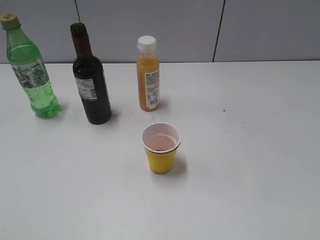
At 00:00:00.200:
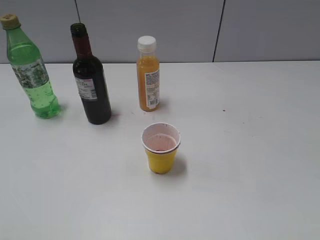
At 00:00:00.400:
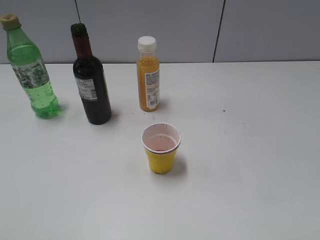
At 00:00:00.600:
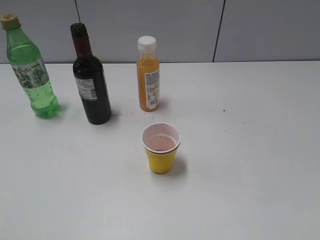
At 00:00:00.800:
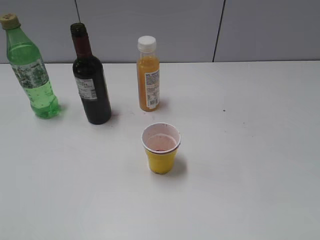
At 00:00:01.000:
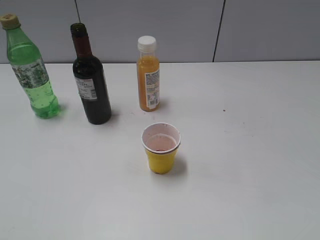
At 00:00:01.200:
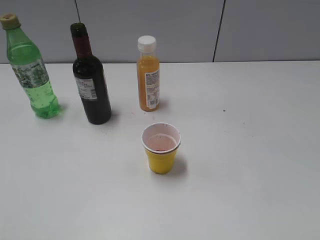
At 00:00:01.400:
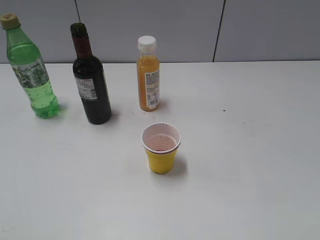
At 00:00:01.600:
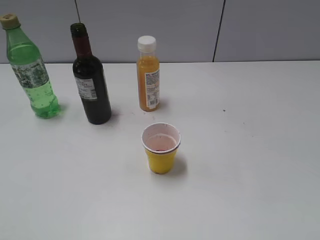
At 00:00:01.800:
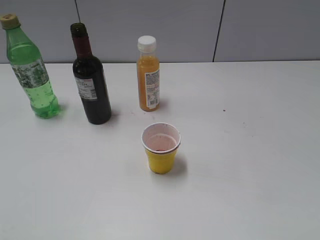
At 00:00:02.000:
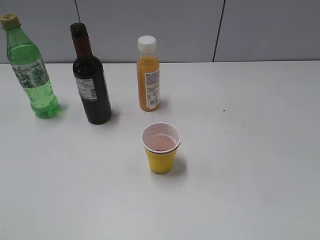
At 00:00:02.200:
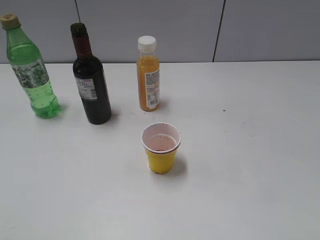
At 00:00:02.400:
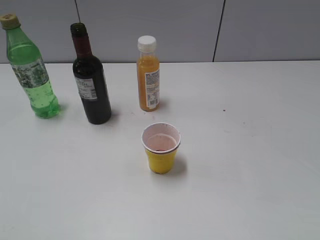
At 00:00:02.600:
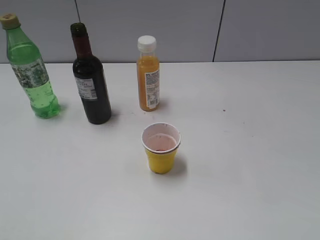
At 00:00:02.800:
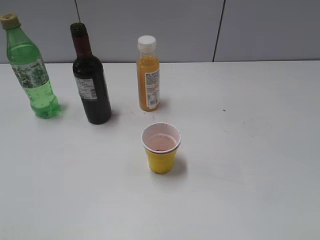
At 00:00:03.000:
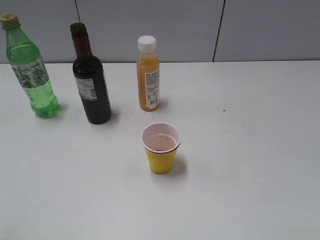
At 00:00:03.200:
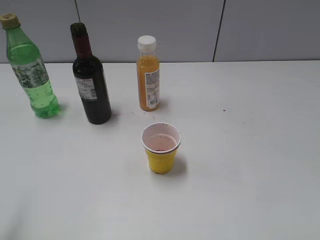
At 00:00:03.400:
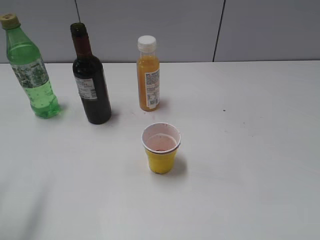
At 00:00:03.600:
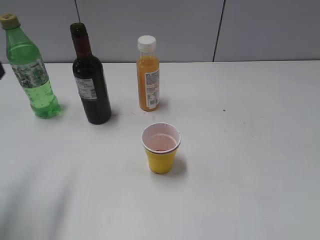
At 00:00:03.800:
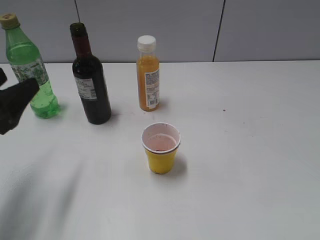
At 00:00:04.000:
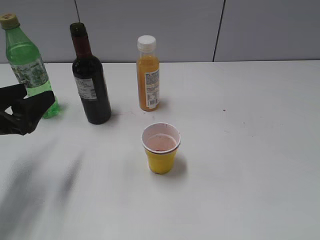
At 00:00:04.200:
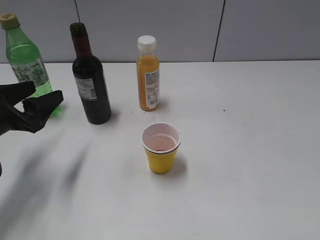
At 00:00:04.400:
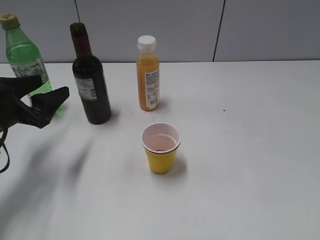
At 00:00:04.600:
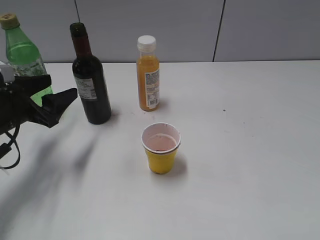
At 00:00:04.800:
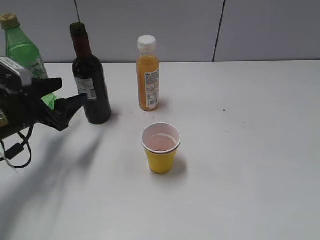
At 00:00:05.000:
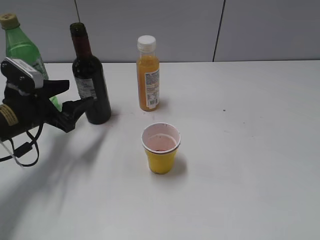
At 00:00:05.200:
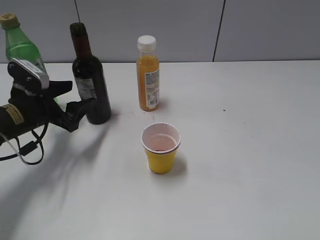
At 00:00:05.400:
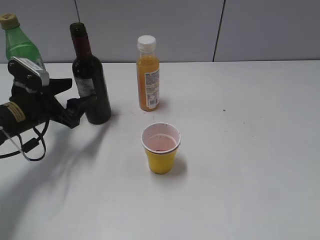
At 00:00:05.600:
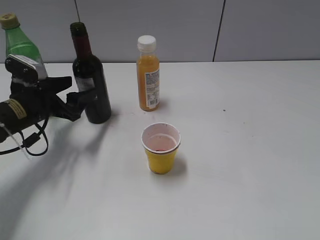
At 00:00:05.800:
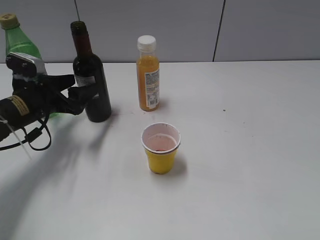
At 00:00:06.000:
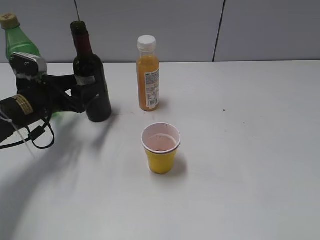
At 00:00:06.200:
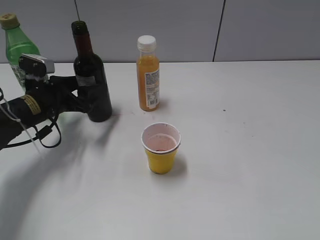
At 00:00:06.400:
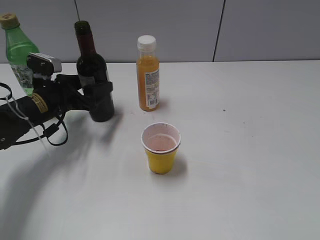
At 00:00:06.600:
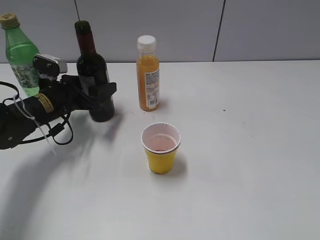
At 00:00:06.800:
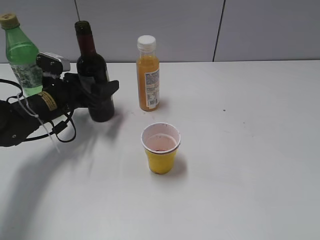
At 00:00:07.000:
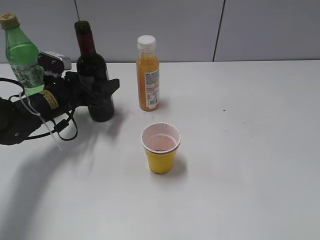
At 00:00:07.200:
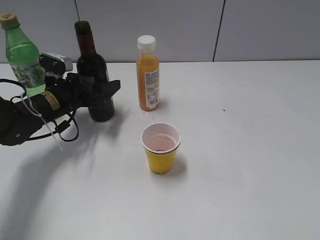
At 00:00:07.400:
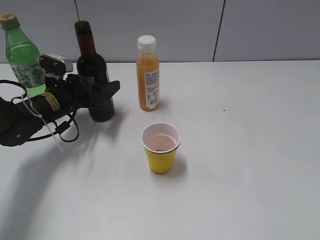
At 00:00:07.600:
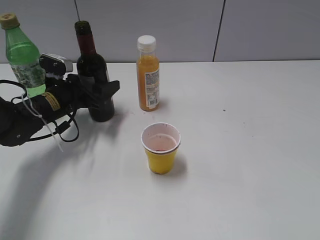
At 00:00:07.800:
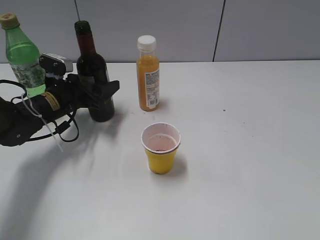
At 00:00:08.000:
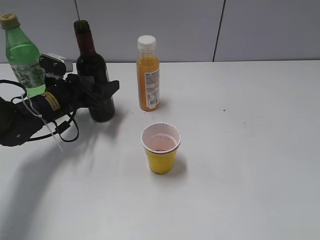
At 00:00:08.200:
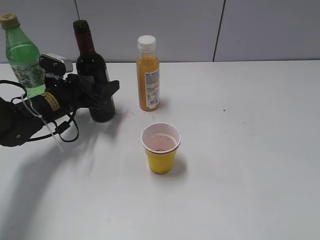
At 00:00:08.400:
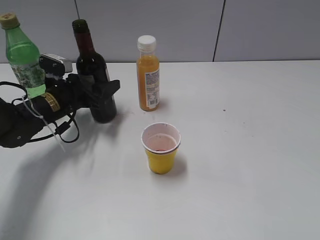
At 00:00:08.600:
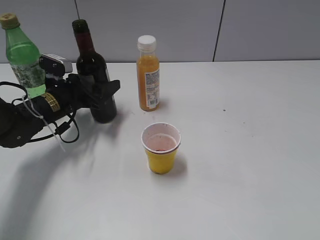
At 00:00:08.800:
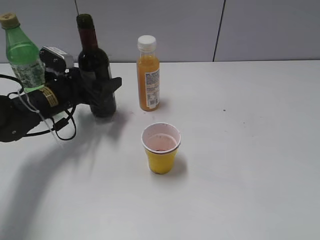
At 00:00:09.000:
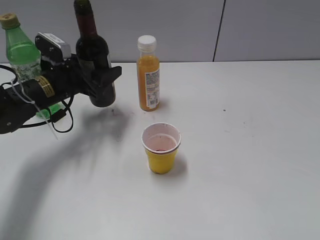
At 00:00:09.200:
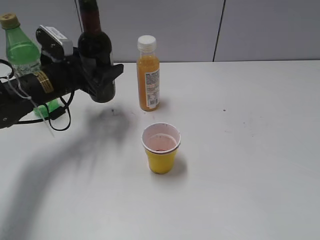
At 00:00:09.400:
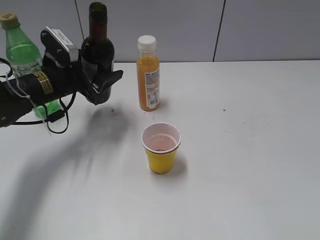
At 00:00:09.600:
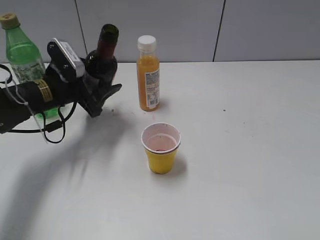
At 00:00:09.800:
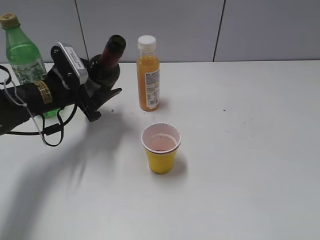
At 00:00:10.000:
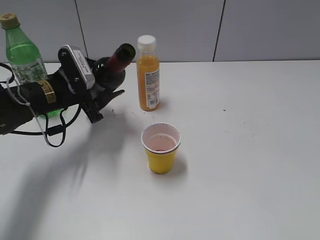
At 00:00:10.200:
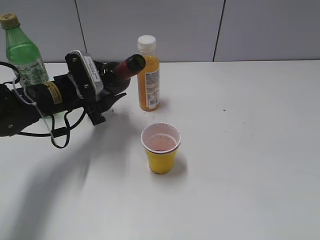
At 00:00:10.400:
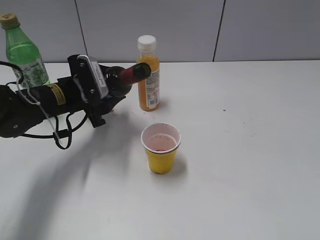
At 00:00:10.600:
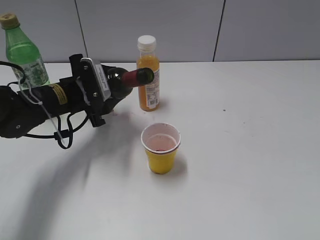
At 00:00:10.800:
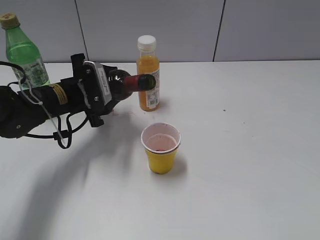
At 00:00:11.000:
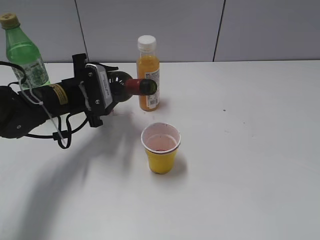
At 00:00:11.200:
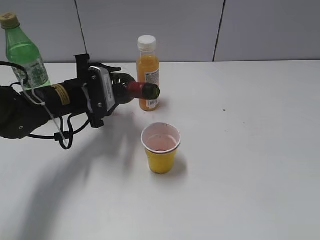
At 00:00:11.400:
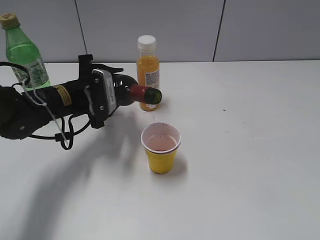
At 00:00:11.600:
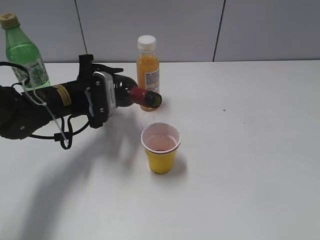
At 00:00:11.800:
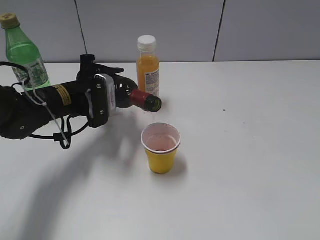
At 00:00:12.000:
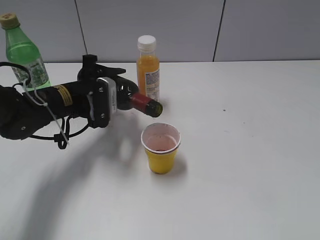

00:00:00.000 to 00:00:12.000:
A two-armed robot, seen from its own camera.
Step, 00:00:00.000 to 00:00:08.200: Grasp the bottle with red wine with left gripper.
00:00:00.000 to 00:00:01.600: Neither gripper changes place.
00:00:03.000 to 00:00:04.400: The left gripper heads forward and downward, covering approximately 30 cm.
00:00:04.400 to 00:00:06.000: The left gripper goes approximately 5 cm forward.
00:00:06.000 to 00:00:07.600: The left gripper moves roughly 5 cm.
00:00:07.600 to 00:00:09.000: There are only small adjustments of the grippers.

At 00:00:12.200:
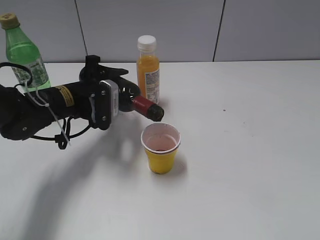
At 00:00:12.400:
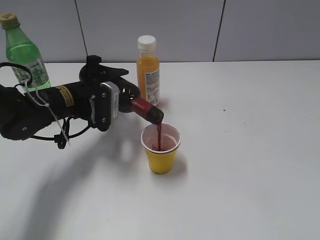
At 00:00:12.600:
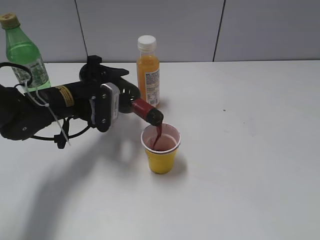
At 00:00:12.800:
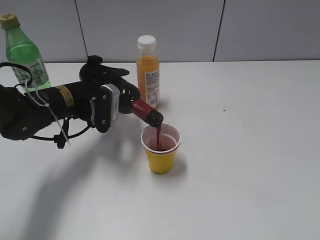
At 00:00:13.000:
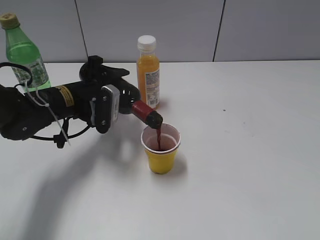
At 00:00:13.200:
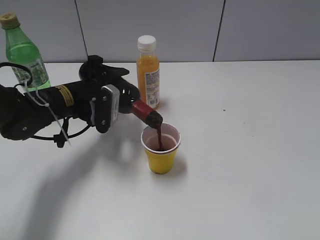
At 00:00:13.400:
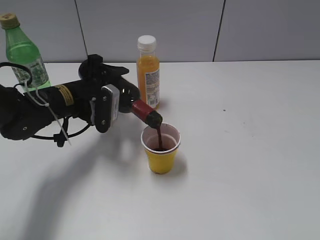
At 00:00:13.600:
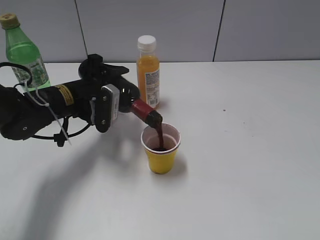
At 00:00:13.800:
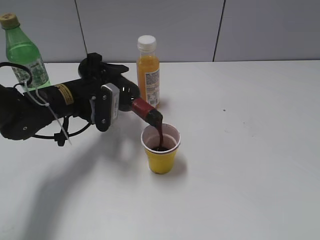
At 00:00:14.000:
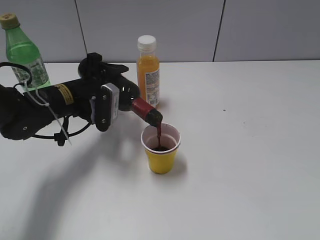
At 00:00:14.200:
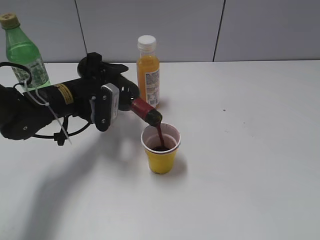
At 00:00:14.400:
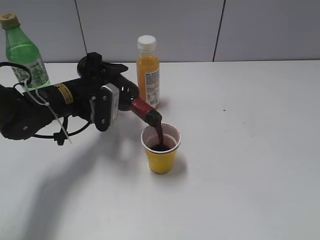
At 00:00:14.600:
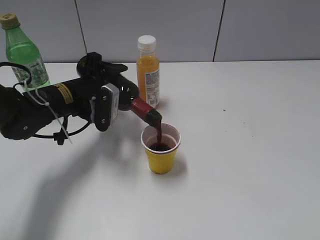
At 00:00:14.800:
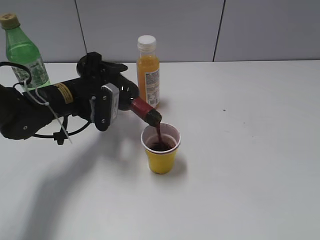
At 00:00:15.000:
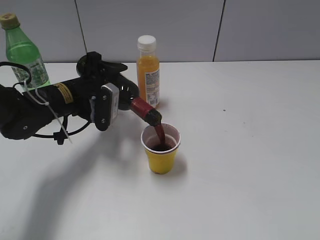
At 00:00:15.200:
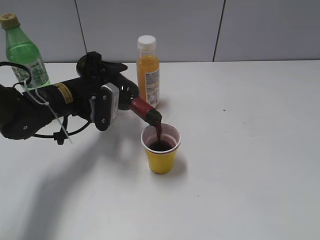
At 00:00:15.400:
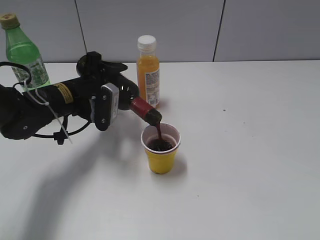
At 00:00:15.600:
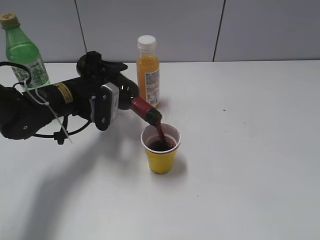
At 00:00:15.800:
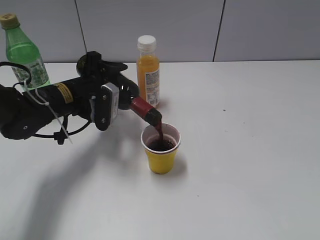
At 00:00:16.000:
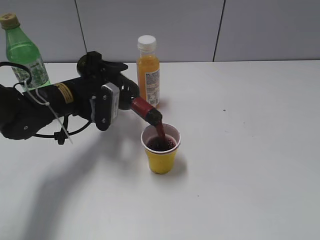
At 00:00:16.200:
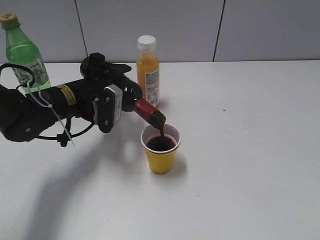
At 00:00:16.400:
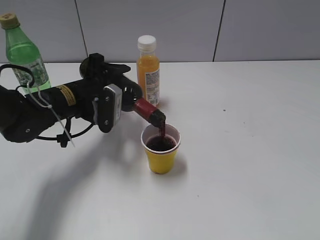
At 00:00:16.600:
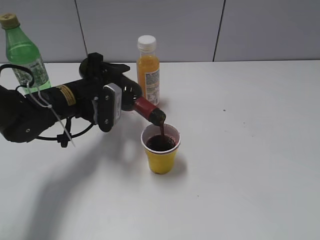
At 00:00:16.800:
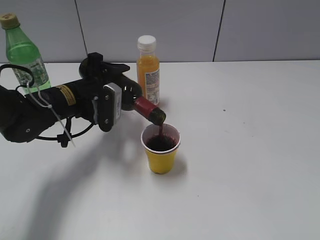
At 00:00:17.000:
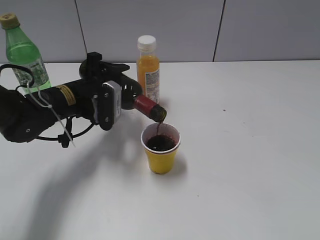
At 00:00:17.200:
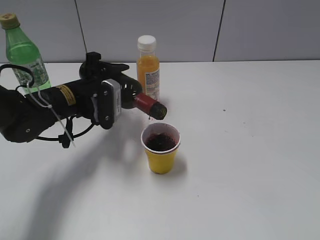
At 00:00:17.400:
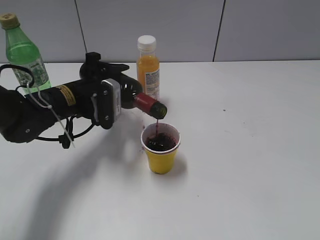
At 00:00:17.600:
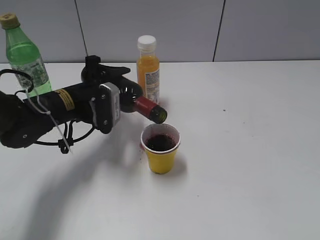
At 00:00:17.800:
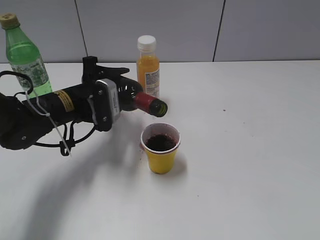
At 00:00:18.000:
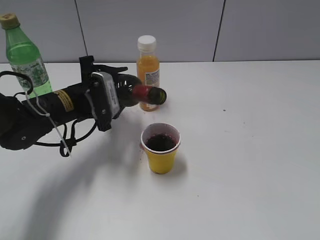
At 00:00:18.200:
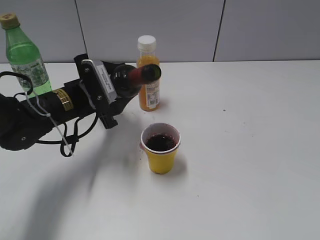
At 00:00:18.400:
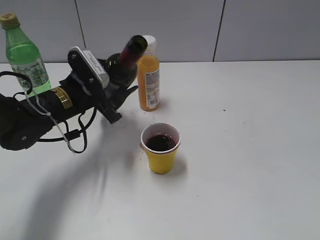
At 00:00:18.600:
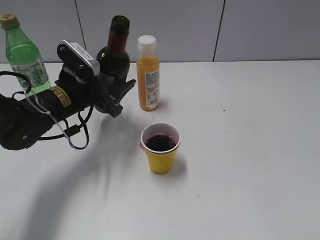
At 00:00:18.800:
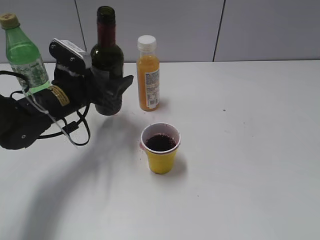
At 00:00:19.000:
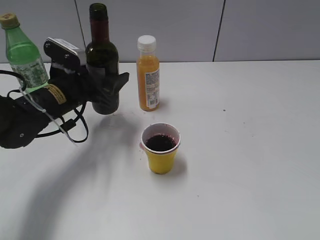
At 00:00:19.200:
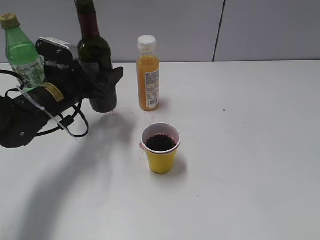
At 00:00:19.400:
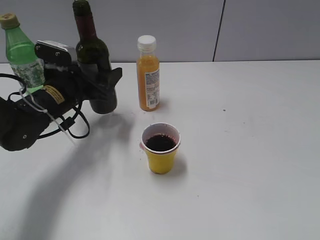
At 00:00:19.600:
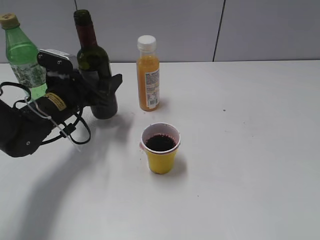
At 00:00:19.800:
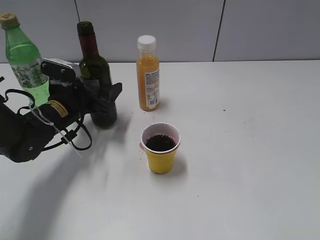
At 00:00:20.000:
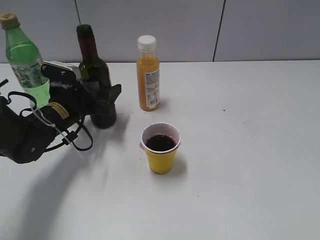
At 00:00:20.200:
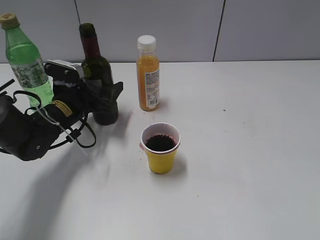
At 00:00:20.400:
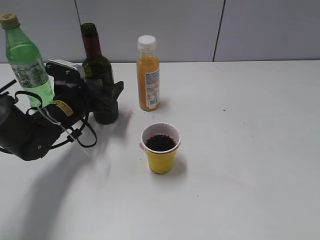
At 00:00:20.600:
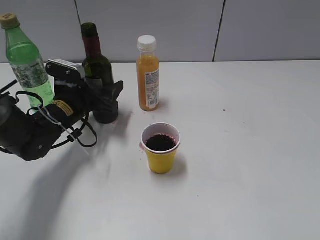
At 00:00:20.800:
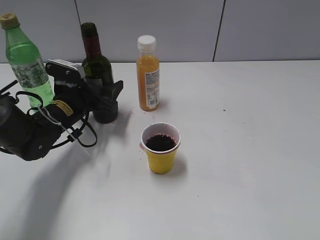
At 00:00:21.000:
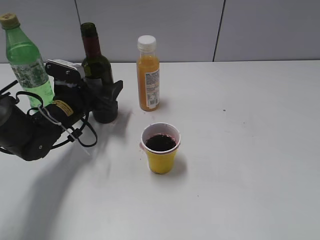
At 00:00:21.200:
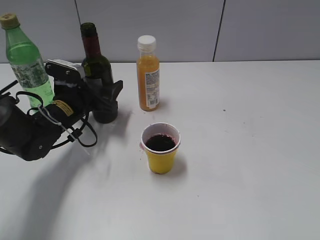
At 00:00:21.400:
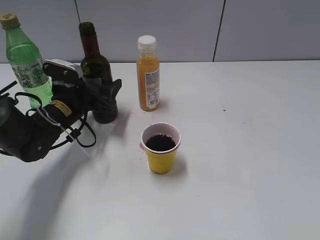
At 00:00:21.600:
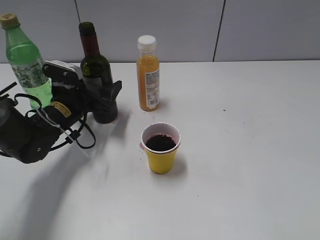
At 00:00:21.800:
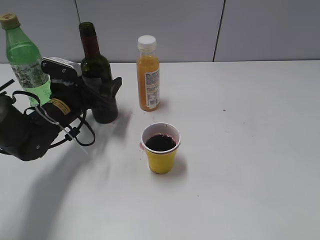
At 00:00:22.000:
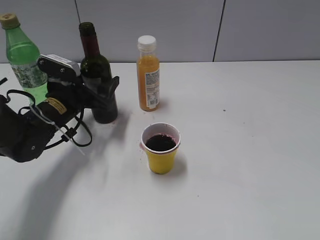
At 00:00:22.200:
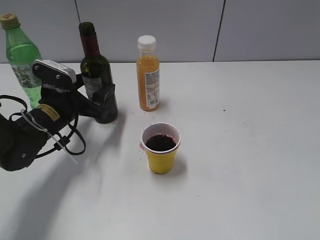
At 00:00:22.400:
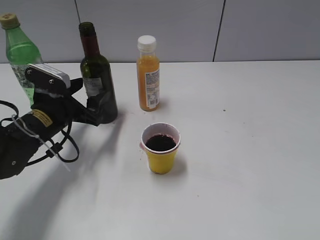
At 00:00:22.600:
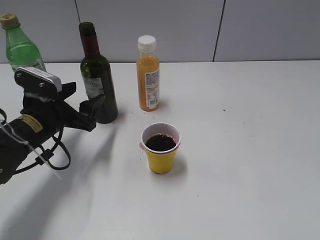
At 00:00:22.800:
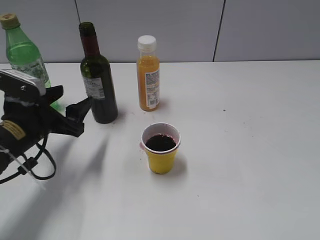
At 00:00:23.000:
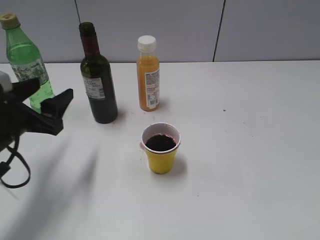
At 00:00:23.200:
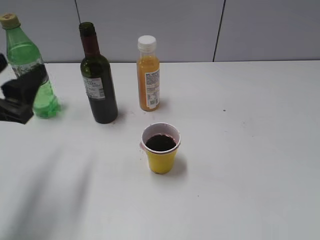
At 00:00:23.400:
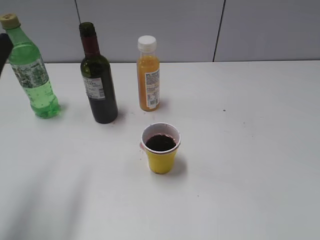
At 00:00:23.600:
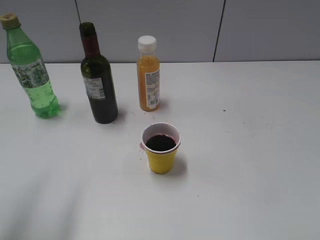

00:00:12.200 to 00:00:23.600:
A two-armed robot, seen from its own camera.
Step, 00:00:12.200 to 00:00:17.800: Pour the red wine from bottle to cup with left gripper.
Step, 00:00:18.200 to 00:00:22.400: Place the red wine bottle on the table with left gripper.
00:00:12.200 to 00:00:13.600: The grippers move only a little.
00:00:13.600 to 00:00:16.400: Neither gripper changes place.
00:00:16.400 to 00:00:17.800: The grippers move only a little.
00:00:19.400 to 00:00:22.200: The grippers move only a little.
00:00:22.200 to 00:00:23.600: The left gripper is displaced backward and upward by some 25 cm.
